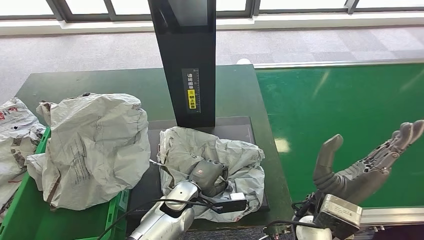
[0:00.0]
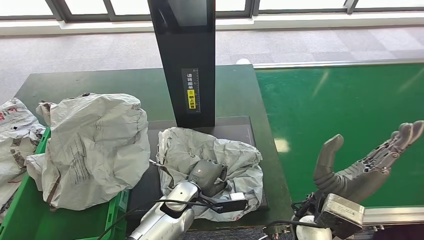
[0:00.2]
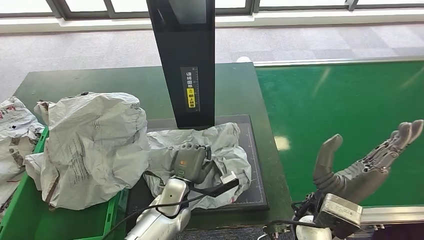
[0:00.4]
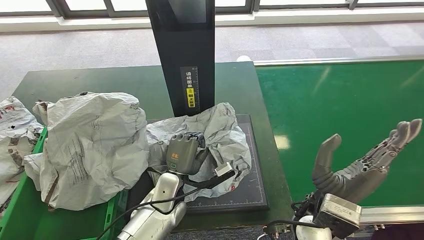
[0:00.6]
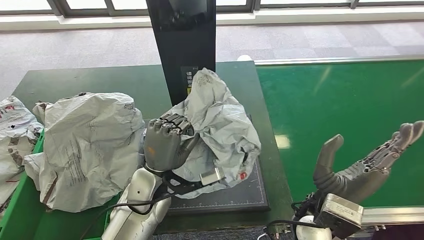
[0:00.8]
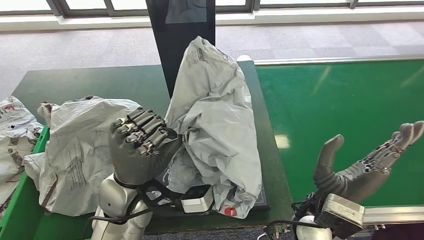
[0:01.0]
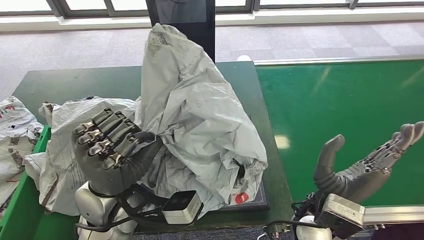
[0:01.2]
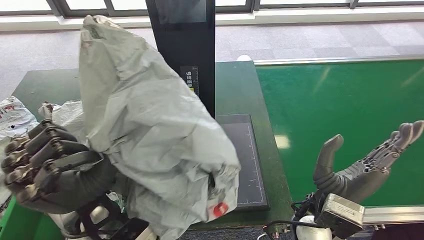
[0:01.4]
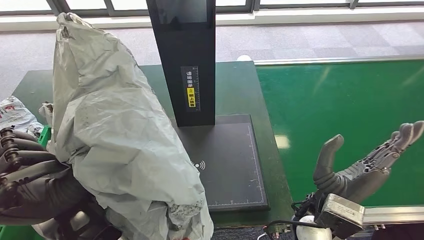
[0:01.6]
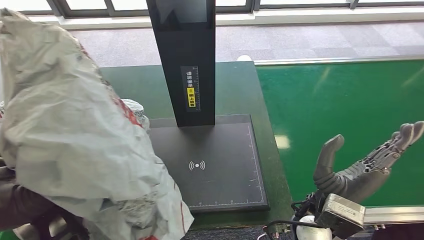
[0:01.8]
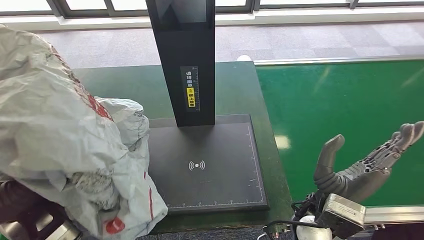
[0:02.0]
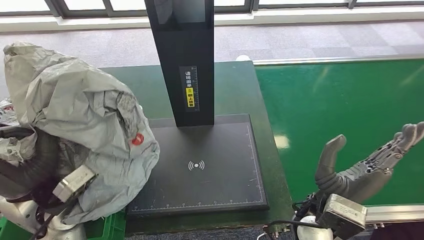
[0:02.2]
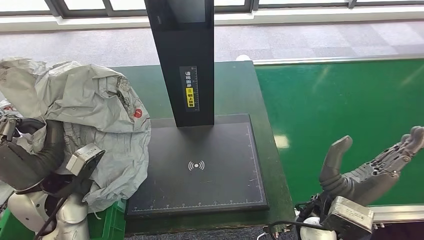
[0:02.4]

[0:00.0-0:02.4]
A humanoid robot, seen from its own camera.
Step, 0:00.4 to 0:02.4: Place the parcel into the delivery box.

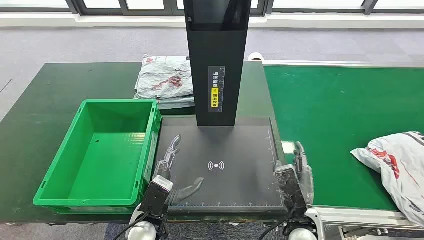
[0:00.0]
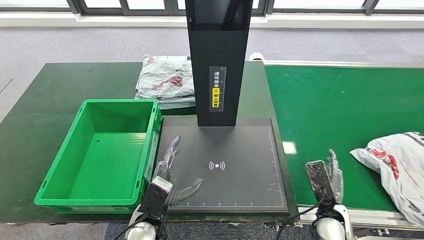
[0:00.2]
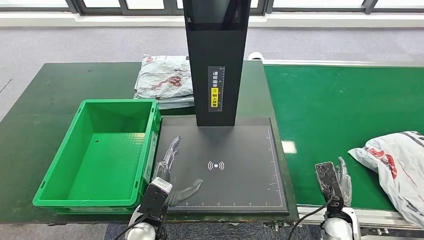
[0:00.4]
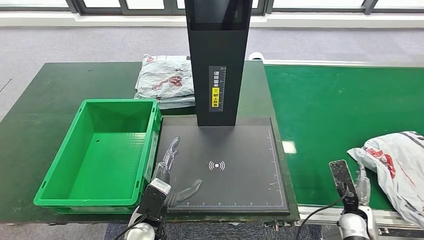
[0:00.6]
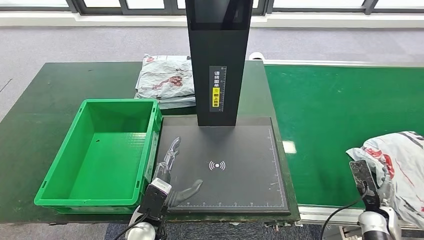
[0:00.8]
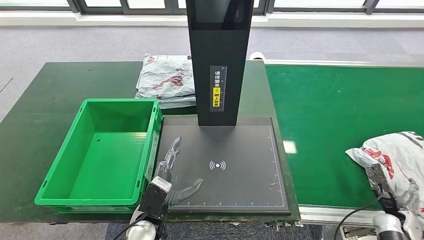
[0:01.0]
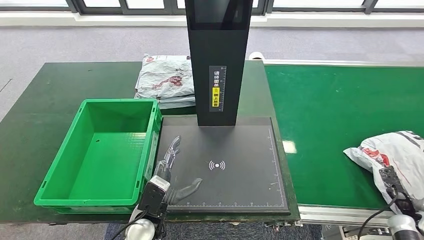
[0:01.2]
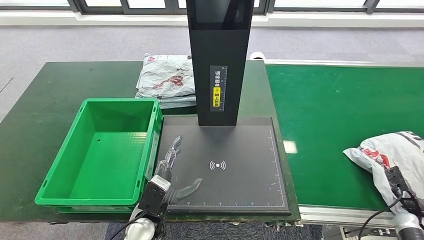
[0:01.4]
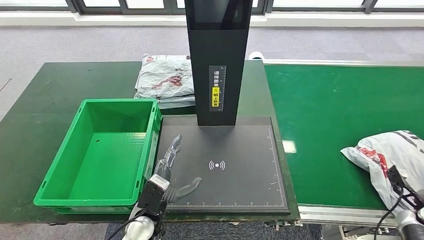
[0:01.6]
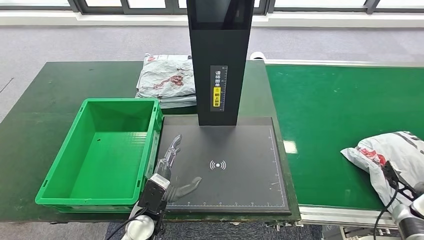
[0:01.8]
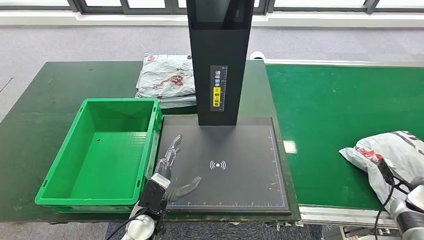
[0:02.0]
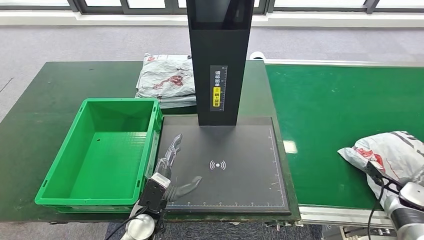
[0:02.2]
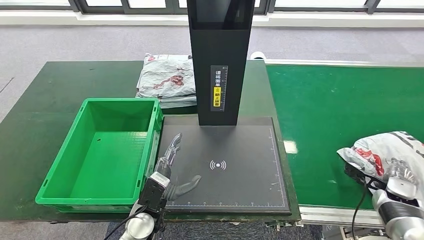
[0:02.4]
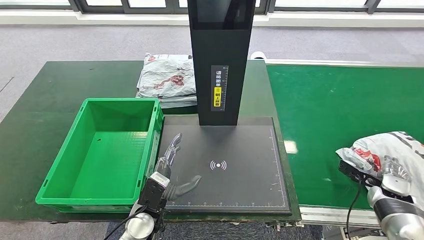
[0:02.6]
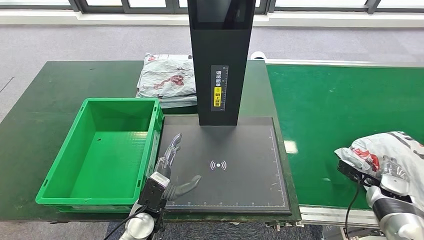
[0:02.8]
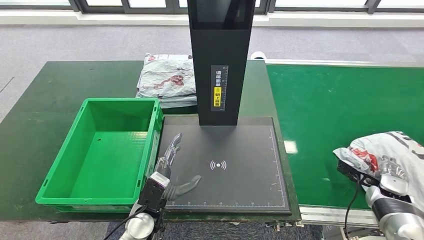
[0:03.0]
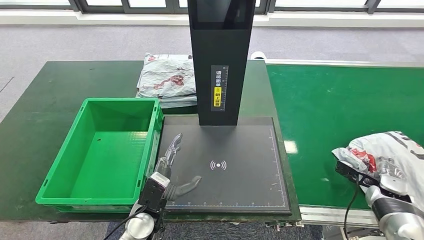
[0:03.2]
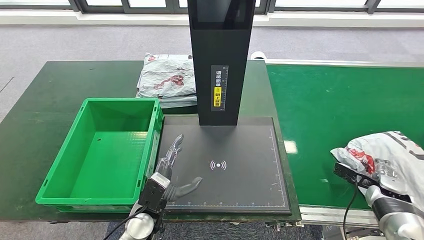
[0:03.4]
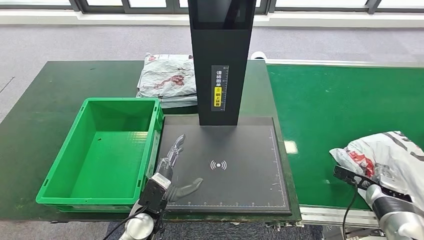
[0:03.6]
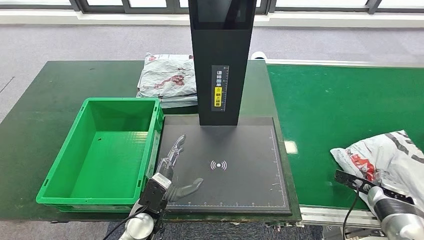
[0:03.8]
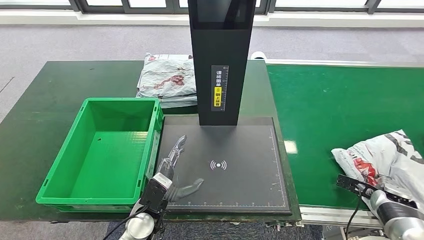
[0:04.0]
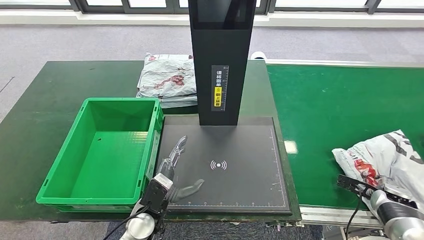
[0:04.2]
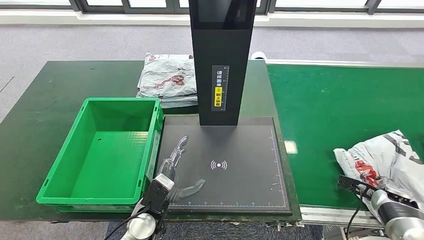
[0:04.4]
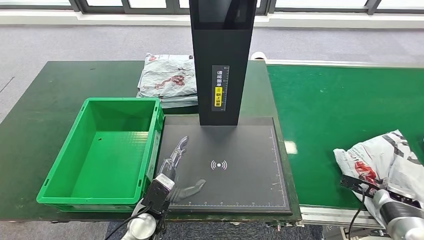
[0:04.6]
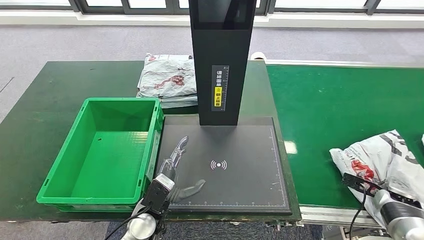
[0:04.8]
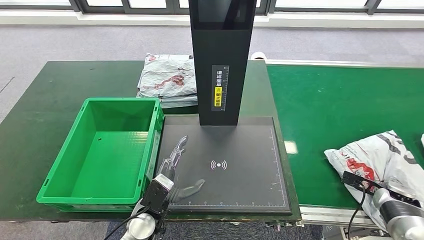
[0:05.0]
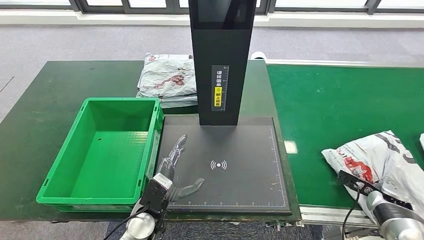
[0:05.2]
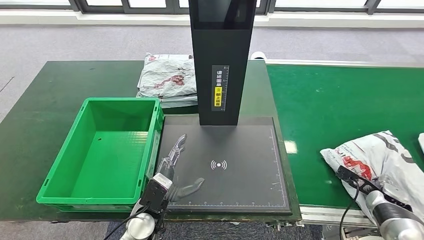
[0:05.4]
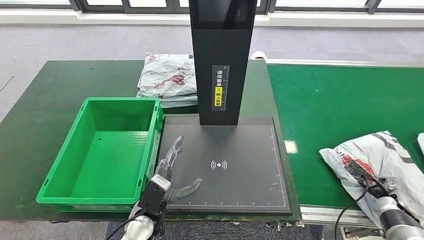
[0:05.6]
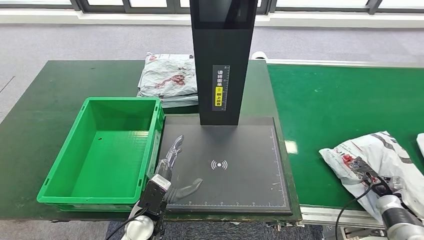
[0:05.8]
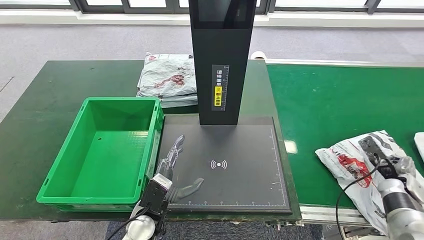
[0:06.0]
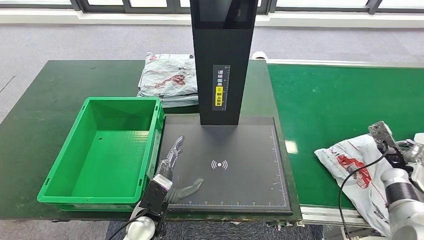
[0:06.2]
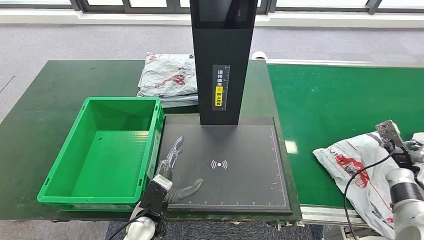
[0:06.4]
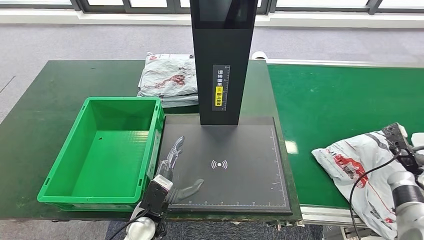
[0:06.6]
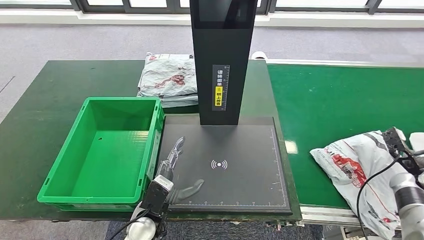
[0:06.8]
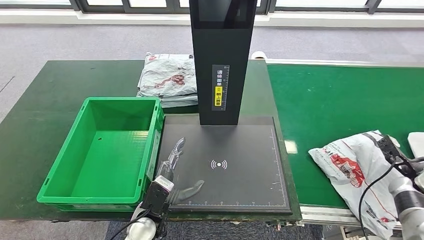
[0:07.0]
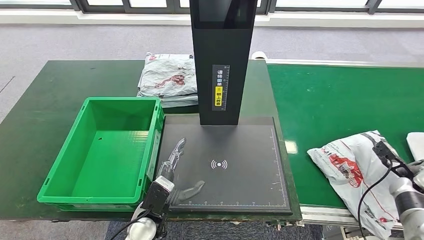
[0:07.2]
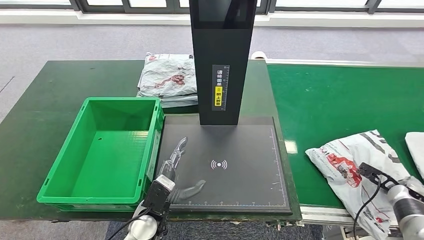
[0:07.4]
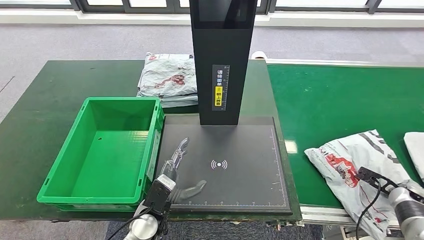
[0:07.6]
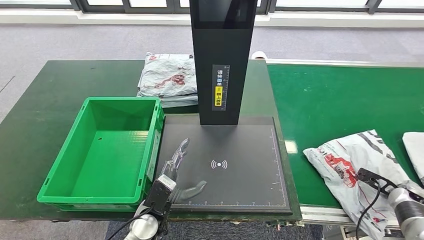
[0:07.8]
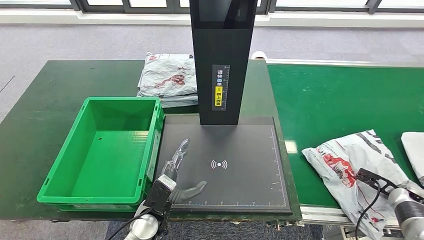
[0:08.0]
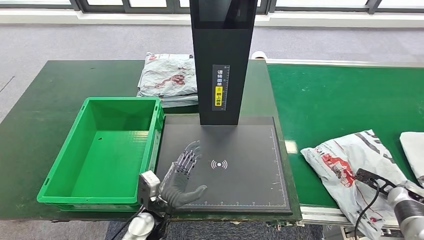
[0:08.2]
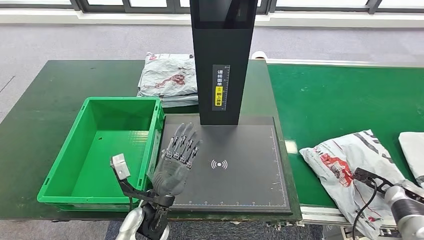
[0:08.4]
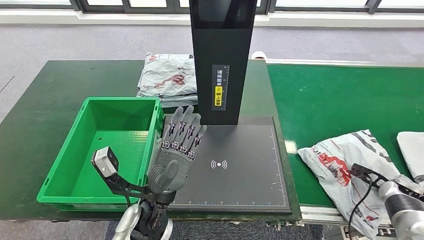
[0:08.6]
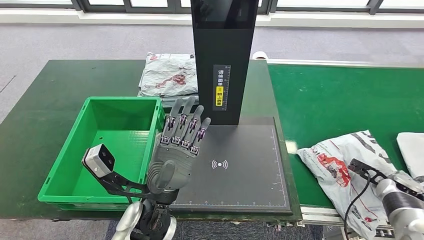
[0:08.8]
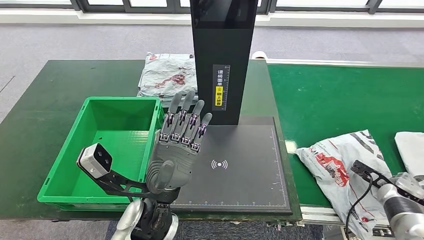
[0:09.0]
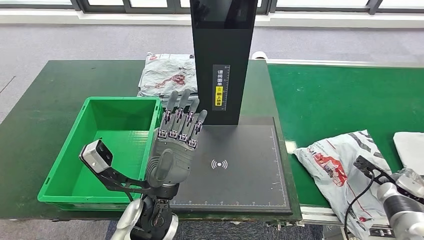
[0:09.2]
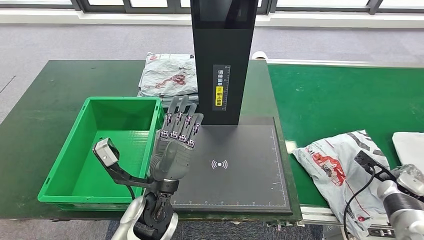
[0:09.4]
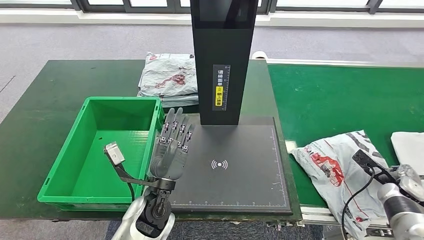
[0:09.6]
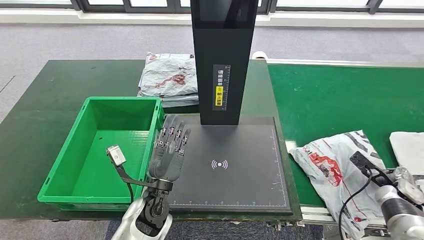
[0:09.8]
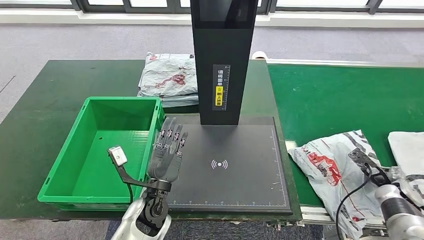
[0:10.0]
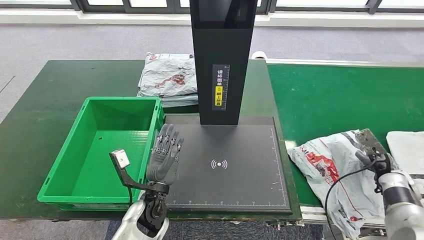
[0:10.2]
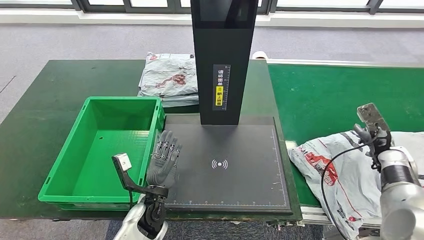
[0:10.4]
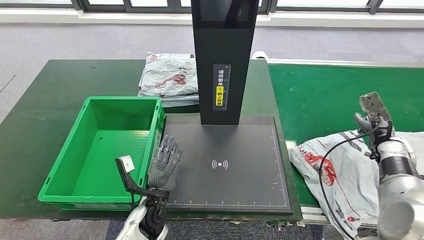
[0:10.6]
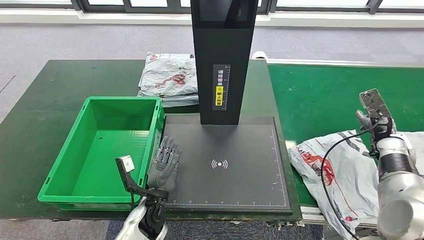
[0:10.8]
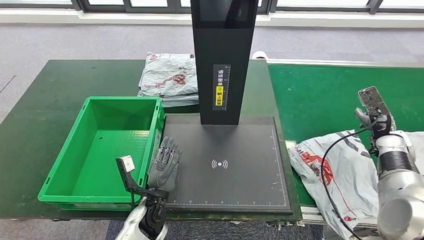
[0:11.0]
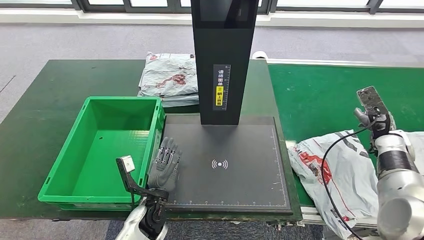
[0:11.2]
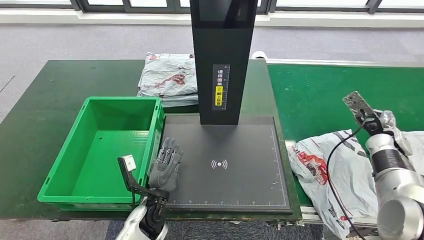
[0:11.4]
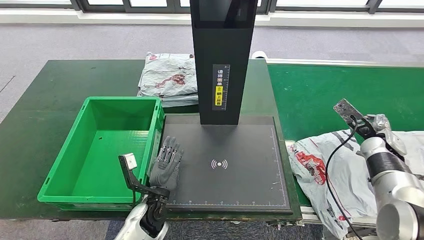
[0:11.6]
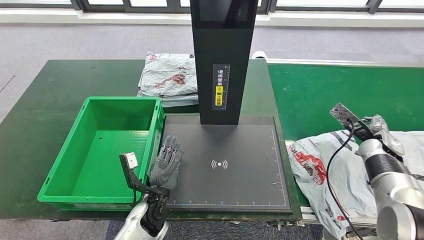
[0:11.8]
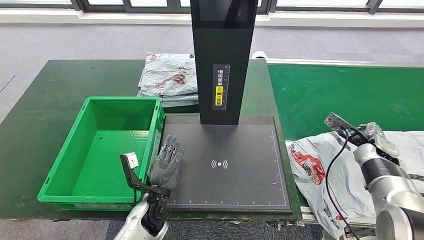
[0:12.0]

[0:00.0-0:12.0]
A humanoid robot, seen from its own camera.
0:01.6 to 0:03.0: The right hand moves forward and to the left, some 10 cm.
0:07.6 to 0:09.0: The left hand heads upward, covering some 15 cm.
0:09.0 to 0:10.4: The right hand goes roughly 10 cm forward and upward. The left hand goes roughly 15 cm downward.

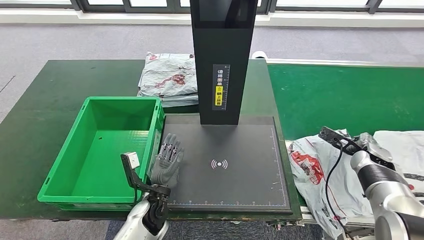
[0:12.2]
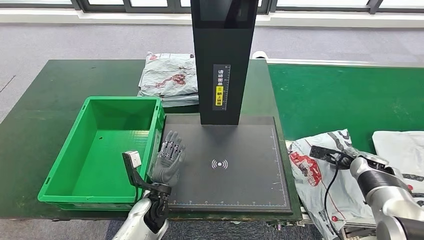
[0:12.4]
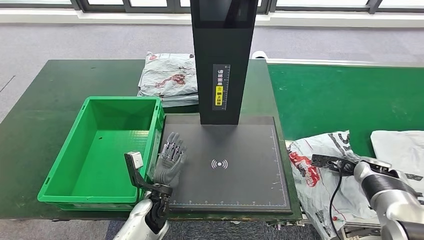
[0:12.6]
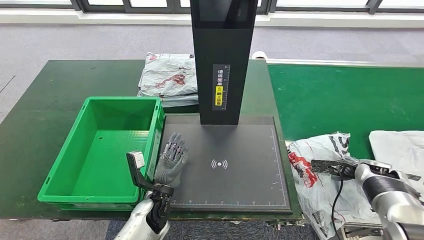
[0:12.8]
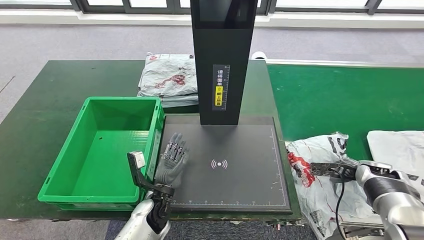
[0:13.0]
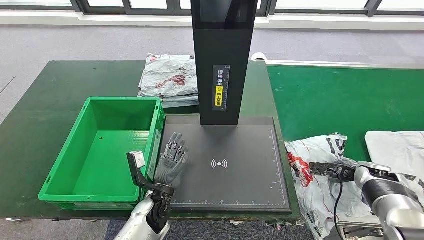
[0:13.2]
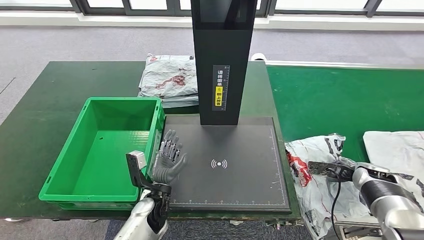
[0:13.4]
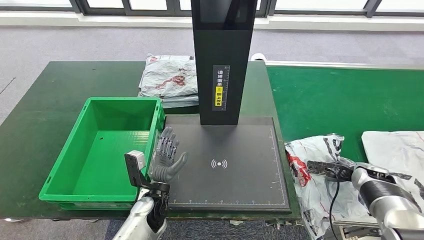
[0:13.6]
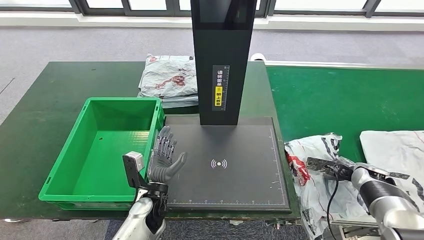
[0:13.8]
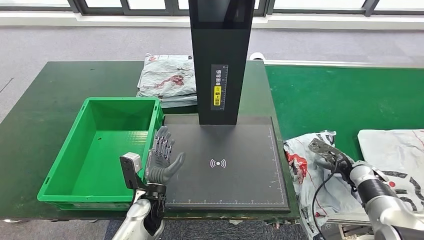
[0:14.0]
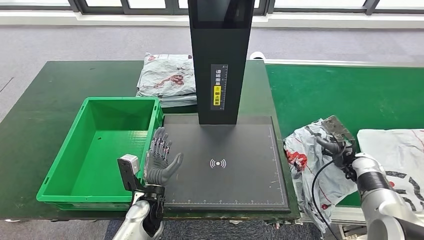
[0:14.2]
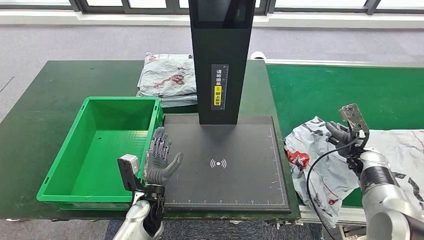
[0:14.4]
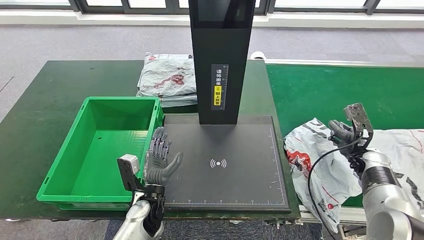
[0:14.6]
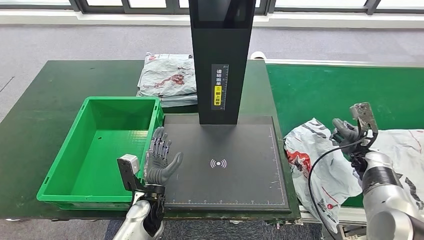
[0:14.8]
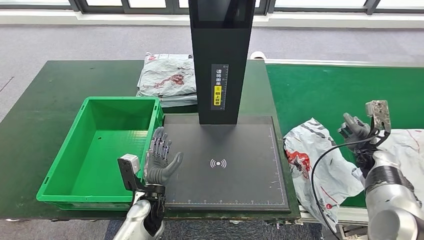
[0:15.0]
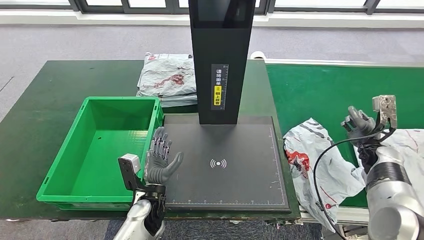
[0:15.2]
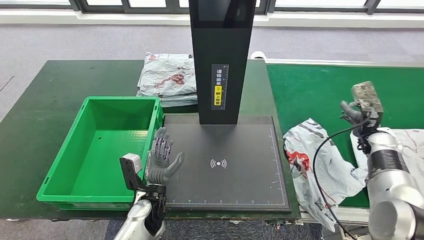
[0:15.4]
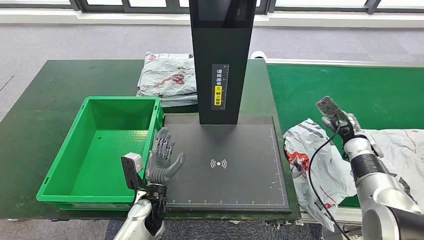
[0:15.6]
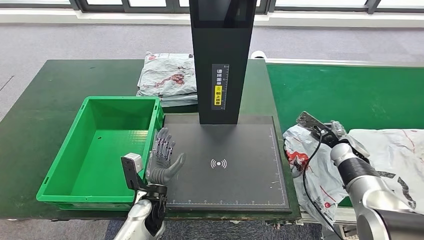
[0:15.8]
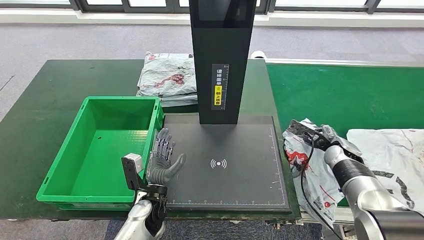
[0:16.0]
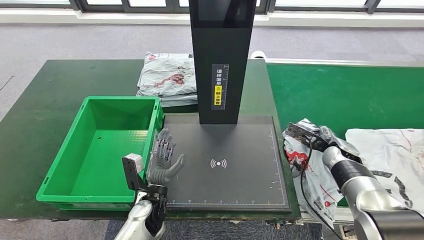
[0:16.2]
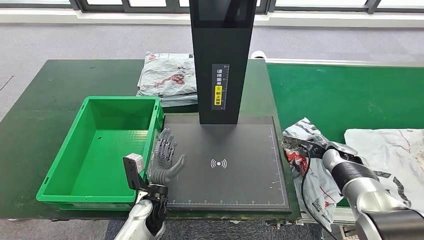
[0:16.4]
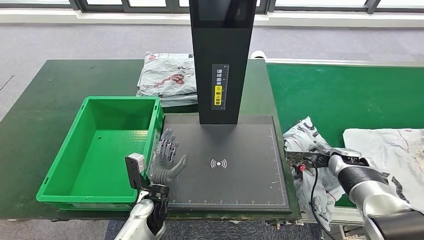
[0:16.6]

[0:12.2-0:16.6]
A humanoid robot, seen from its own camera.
0:15.2 to 0:16.6: The right hand goes some 5 cm to the left.
